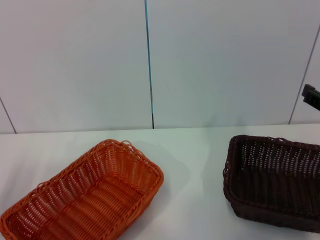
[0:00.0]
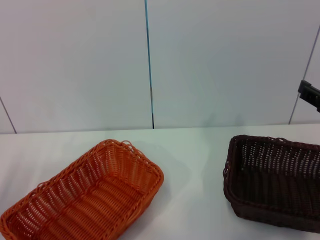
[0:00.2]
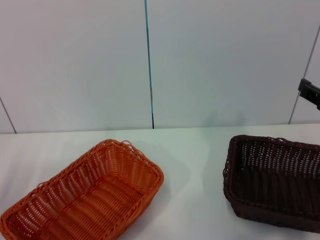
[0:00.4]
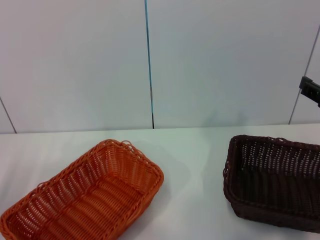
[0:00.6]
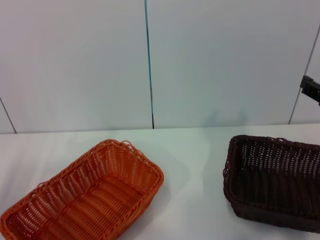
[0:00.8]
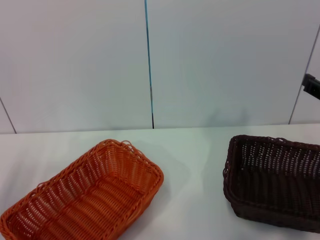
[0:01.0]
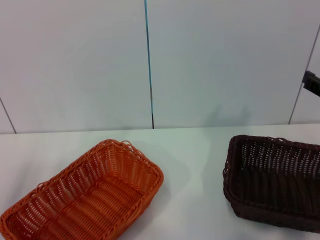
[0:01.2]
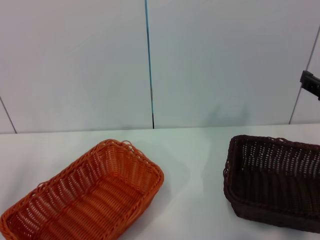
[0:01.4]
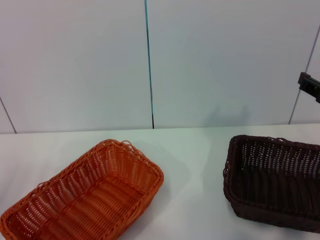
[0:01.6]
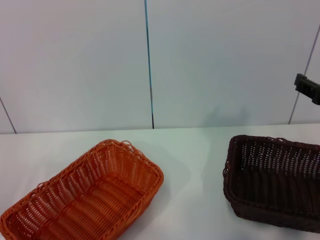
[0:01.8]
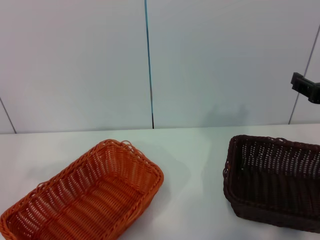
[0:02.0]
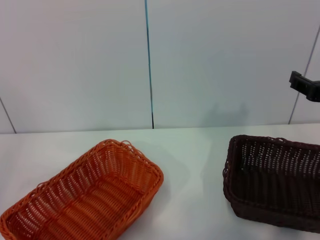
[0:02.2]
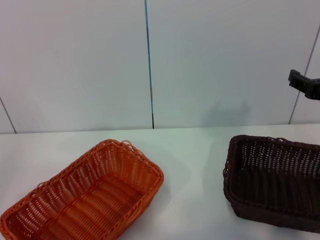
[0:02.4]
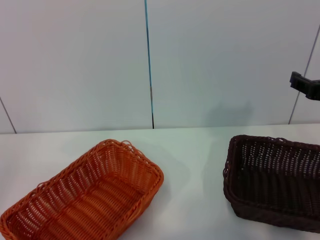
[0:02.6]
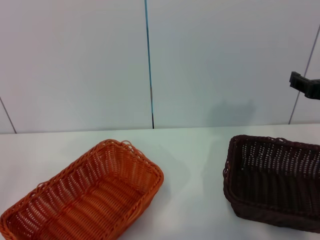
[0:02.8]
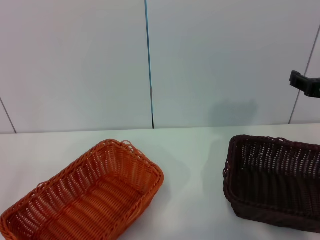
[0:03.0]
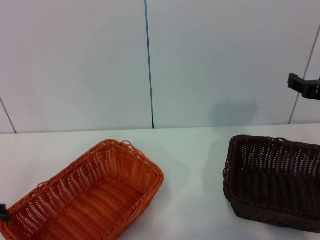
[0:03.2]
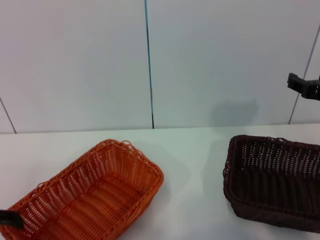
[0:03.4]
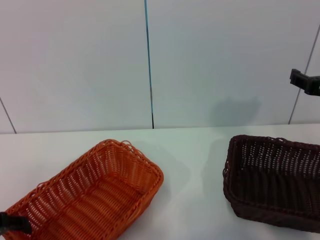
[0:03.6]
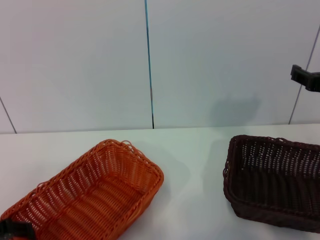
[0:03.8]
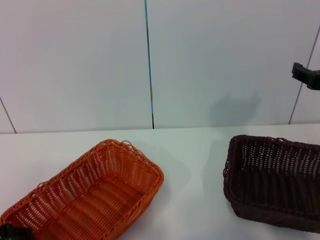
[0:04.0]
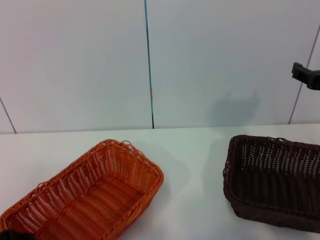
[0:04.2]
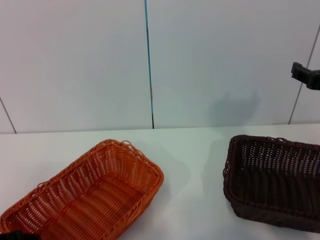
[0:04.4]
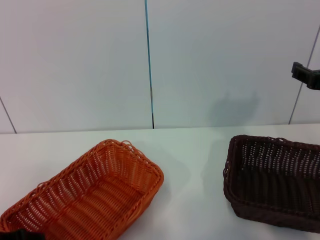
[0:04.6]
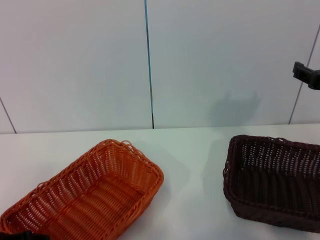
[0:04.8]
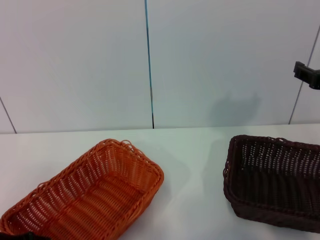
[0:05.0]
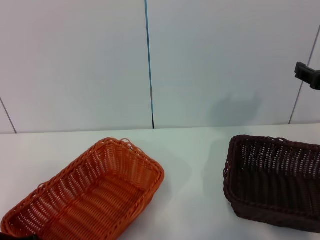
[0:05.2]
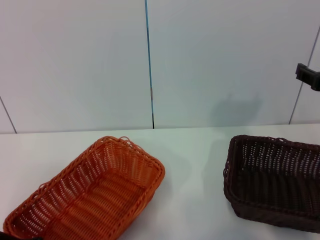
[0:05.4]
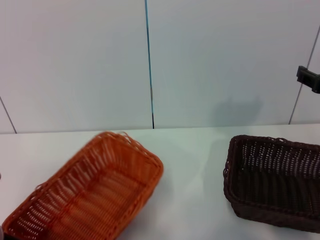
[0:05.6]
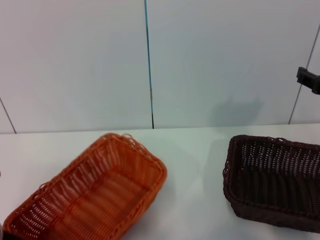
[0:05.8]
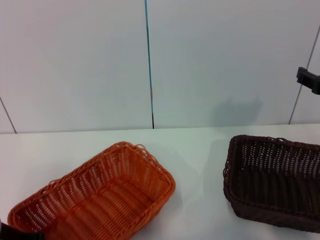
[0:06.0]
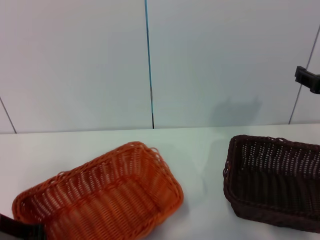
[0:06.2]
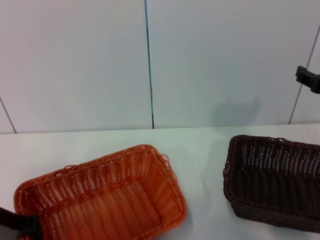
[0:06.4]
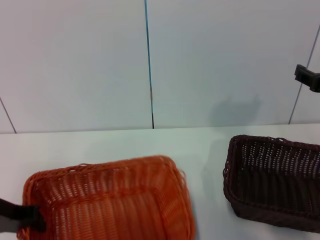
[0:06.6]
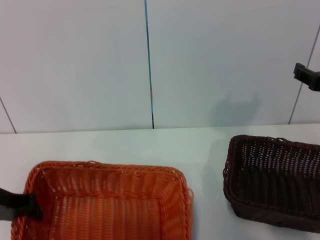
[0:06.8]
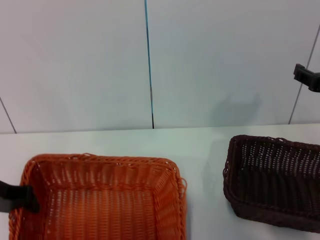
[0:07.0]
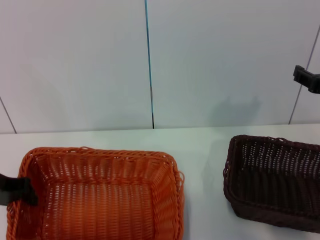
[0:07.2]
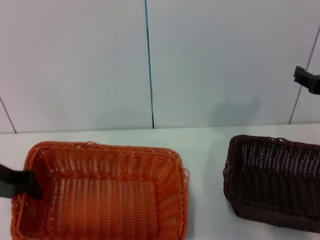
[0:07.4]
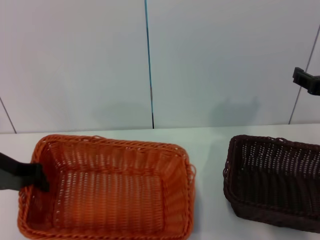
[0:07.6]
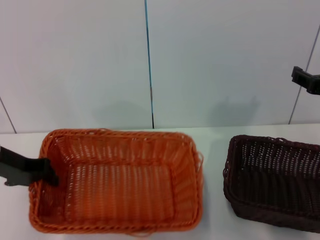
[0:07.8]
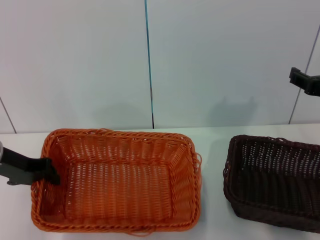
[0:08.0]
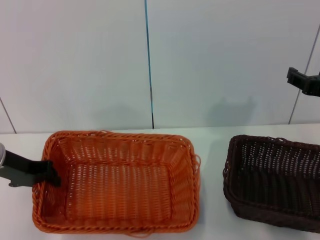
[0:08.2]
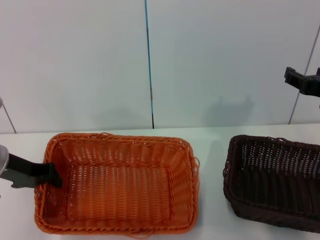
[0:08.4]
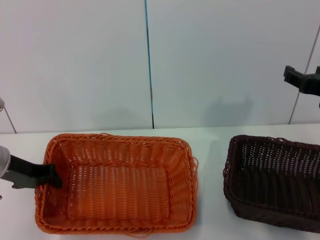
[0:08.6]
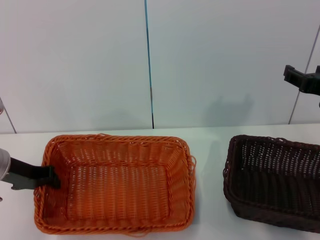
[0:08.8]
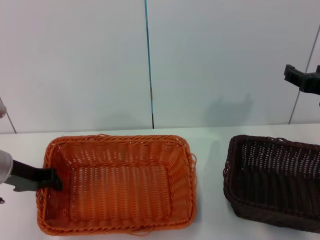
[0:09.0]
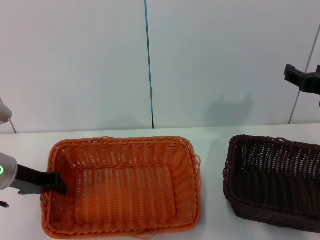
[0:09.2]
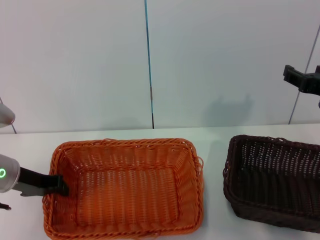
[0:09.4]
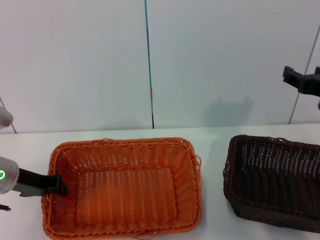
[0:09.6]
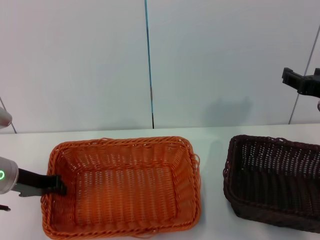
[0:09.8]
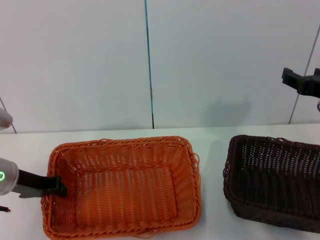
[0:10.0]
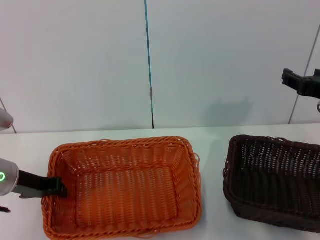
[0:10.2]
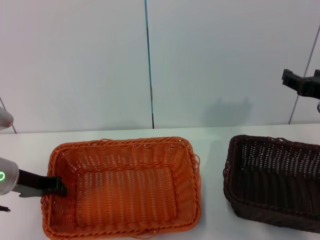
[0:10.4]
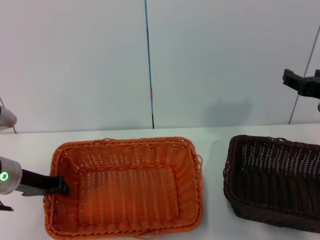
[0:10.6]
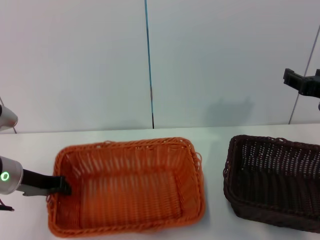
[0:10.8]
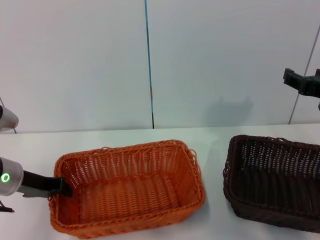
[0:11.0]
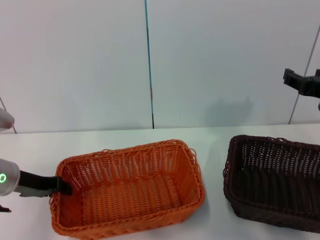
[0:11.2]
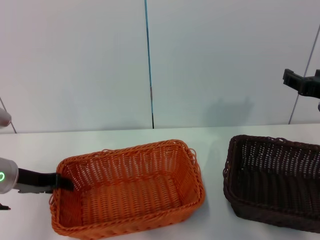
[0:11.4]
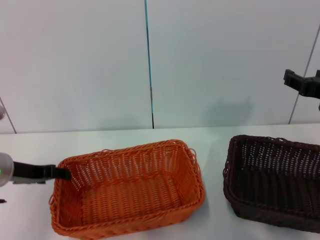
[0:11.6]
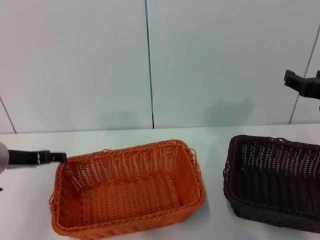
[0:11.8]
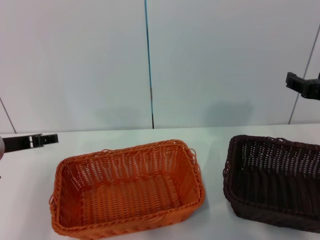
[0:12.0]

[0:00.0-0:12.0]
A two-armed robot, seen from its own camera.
Step, 0:00.0 to 0:06.2: Pick up the light basket with the left gripper.
Step, 0:06.4 to 0:11.0: Place the light basket in the center of view with the left gripper.
0:04.4 to 0:06.0: The left gripper closes.
0:06.0 to 0:07.6: The left gripper goes about 10 cm upward and forward.
0:07.6 to 0:09.0: The left gripper shifts roughly 5 cm downward.
0:09.0 to 0:10.4: There are only small adjustments of the grippers.
0:10.4 to 0:12.0: The left gripper opens up.

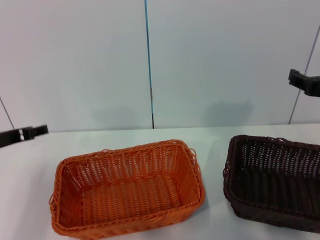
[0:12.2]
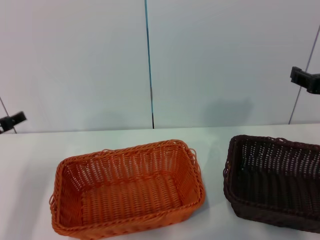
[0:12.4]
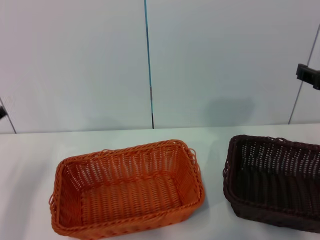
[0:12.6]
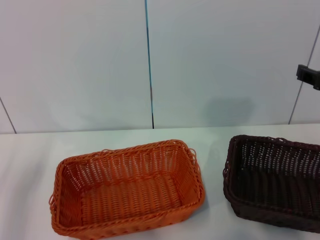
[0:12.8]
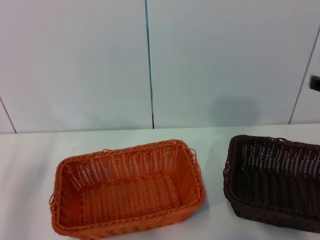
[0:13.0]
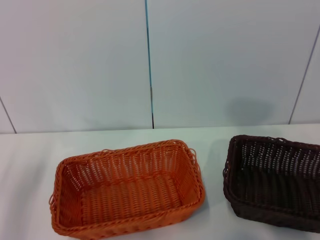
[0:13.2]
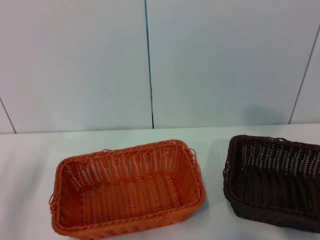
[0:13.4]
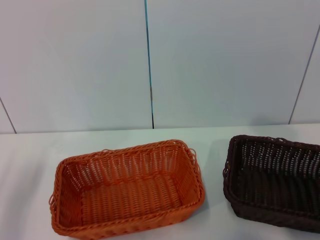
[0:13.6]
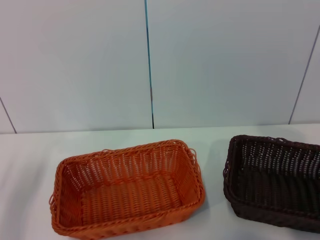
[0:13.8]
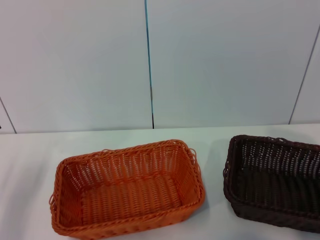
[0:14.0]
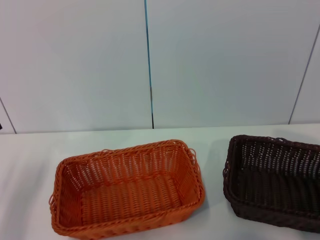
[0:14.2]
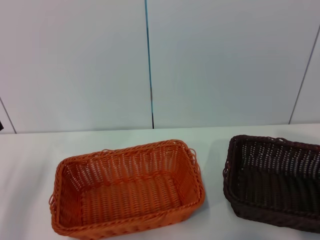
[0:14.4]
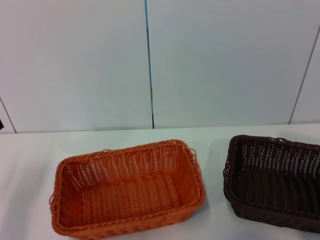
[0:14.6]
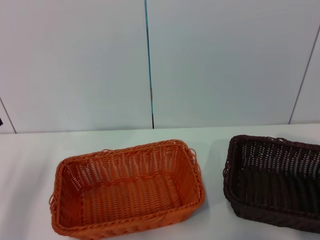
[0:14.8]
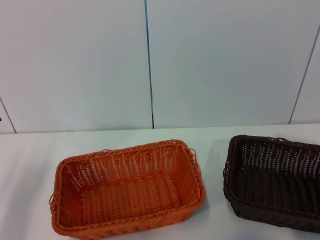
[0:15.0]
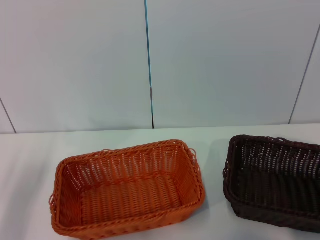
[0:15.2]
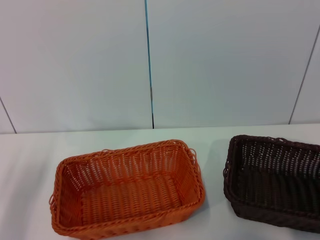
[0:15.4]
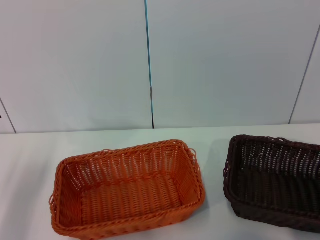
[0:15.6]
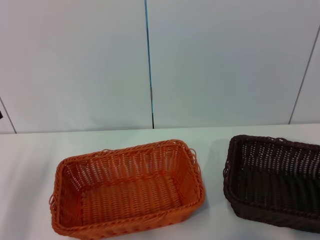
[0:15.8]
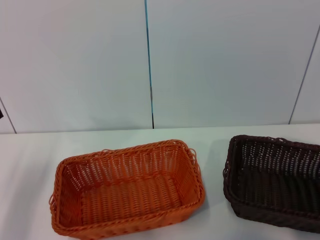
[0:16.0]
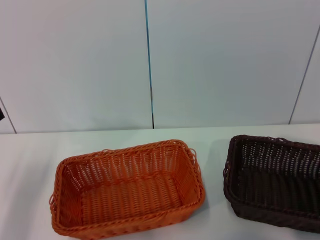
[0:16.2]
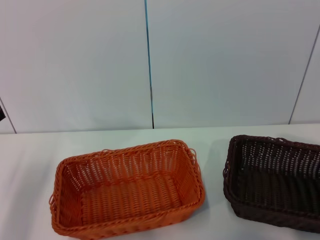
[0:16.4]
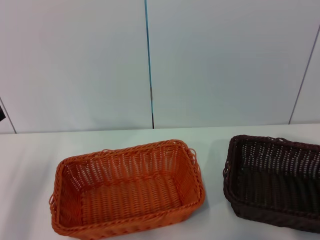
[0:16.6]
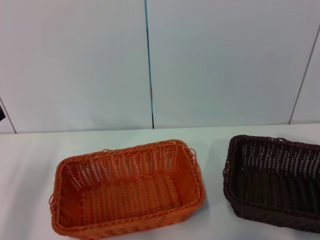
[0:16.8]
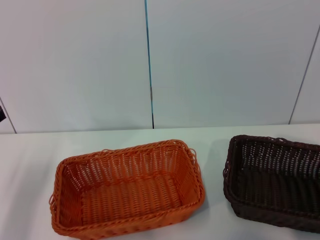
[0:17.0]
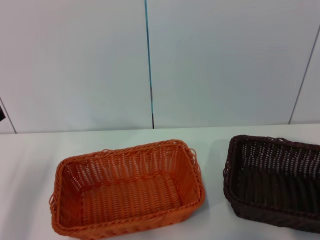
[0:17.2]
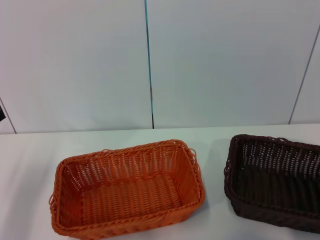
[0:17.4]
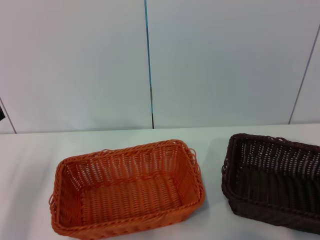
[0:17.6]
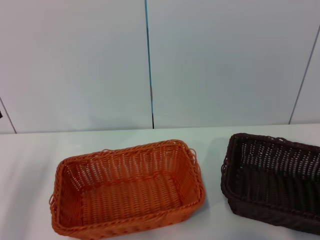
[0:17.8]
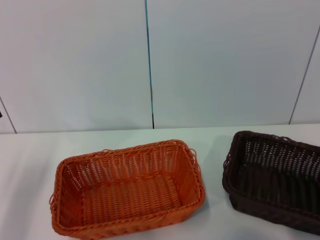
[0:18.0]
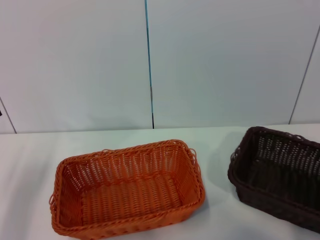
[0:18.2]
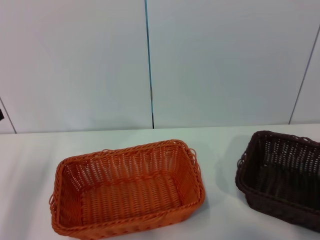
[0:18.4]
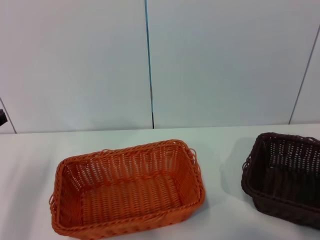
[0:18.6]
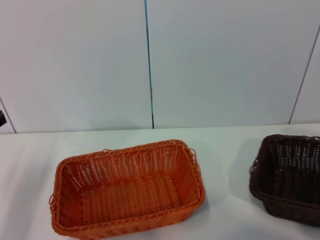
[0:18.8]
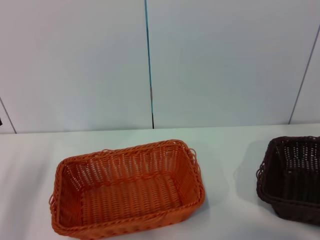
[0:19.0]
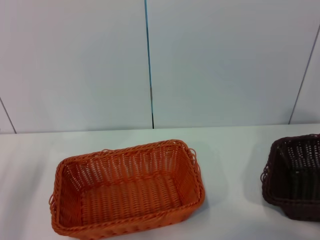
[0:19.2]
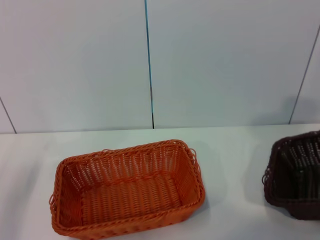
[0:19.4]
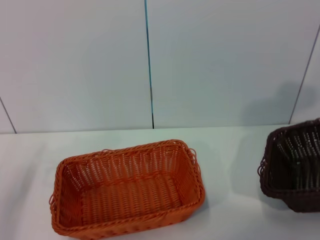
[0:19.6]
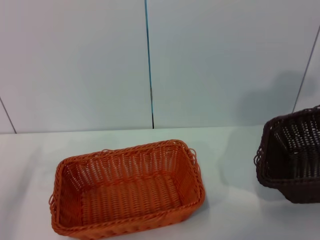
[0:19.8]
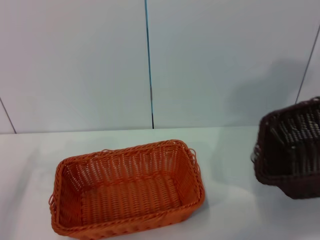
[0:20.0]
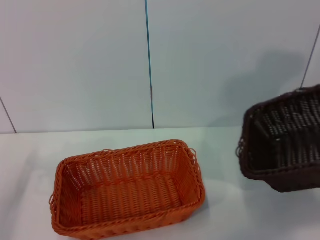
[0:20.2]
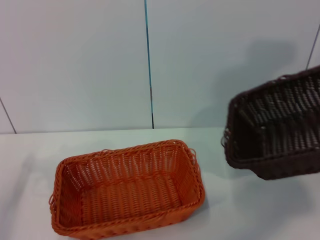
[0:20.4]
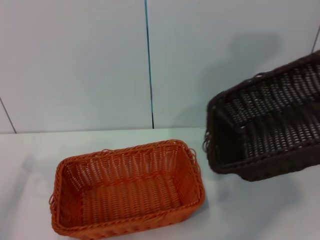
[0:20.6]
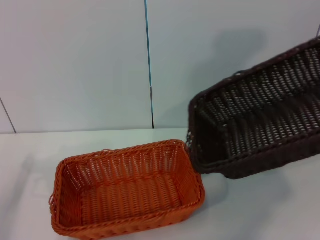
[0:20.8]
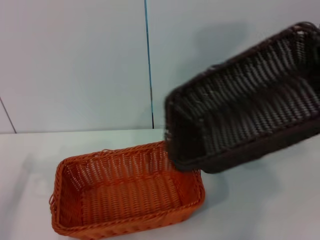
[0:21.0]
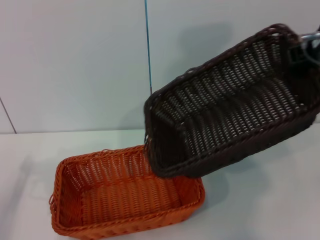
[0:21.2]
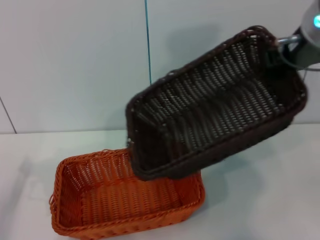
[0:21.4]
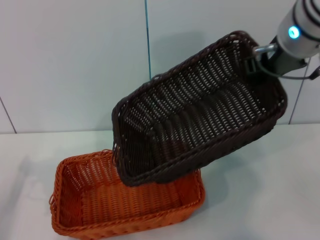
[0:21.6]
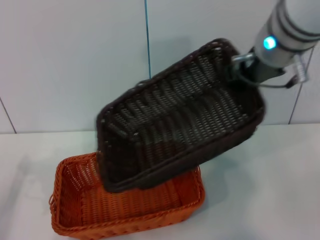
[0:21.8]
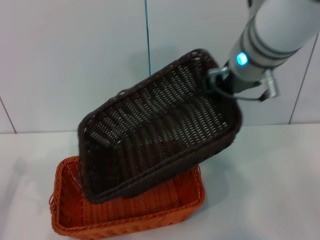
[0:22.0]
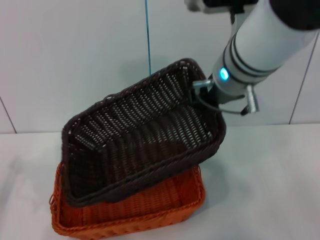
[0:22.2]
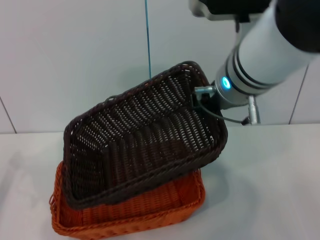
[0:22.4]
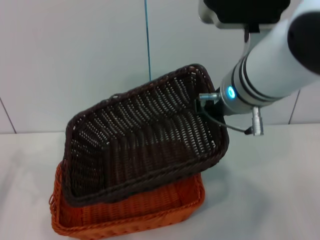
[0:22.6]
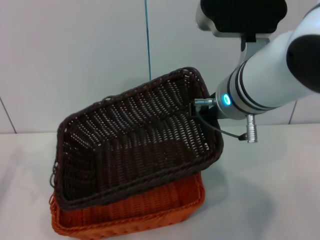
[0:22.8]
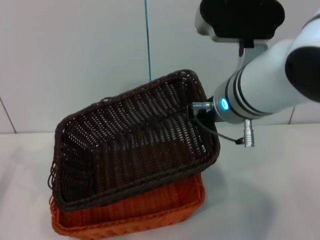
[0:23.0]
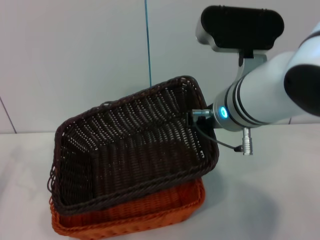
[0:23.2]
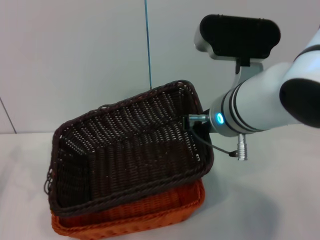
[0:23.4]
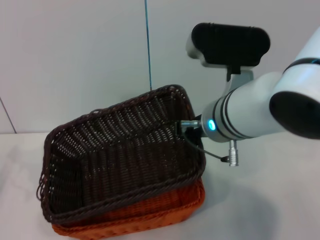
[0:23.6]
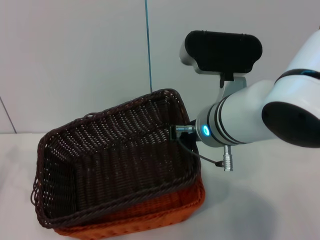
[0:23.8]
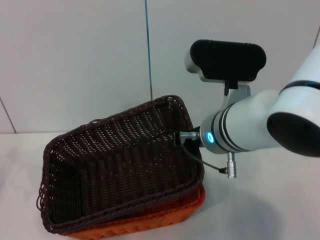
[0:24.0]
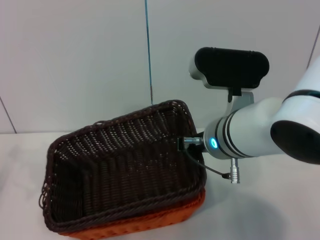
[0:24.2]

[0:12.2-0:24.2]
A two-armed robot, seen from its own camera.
Step, 0:12.2 to 0:19.0: Pick up the dark basket with the right gripper.
0:12.2 to 0:13.8: The left gripper shifts by about 5 cm. Meanwhile the right gripper moves to the right, approximately 10 cm.
0:16.6 to 0:18.2: The right gripper closes its fingers.
0:18.2 to 0:19.8: The right gripper goes some 20 cm upward.
0:19.8 to 0:21.2: The right gripper goes about 15 cm to the left.
0:21.2 to 0:22.6: The right gripper goes approximately 15 cm to the left and downward.
0:22.6 to 0:24.2: The right gripper moves downward, about 10 cm.
